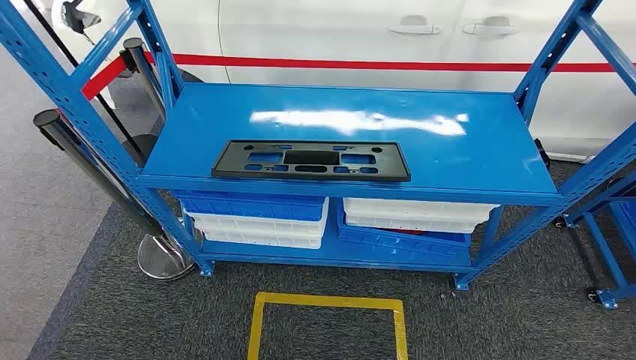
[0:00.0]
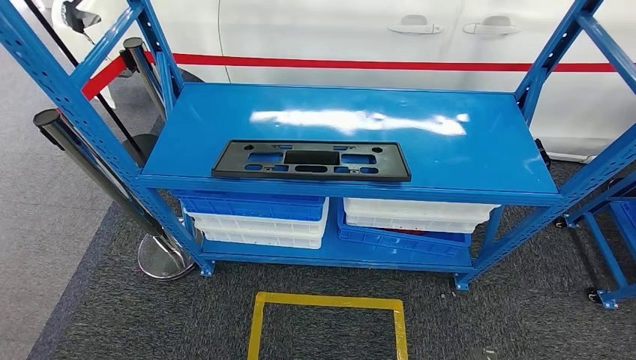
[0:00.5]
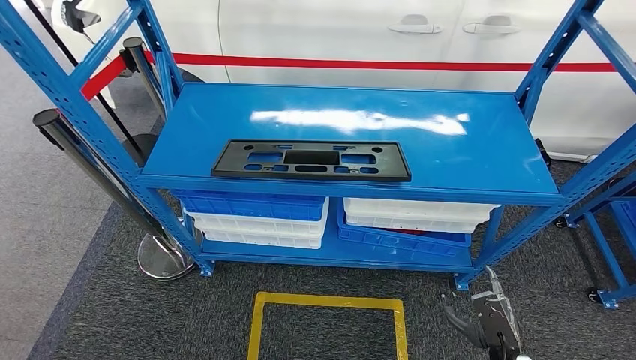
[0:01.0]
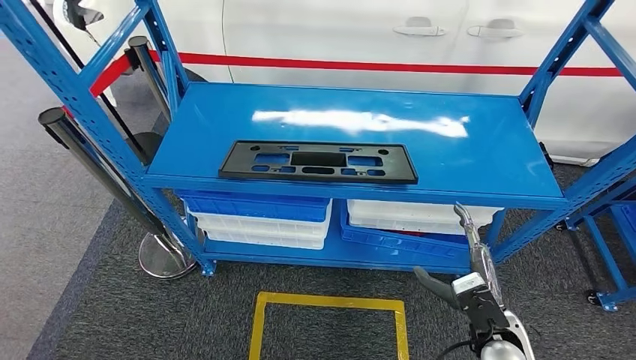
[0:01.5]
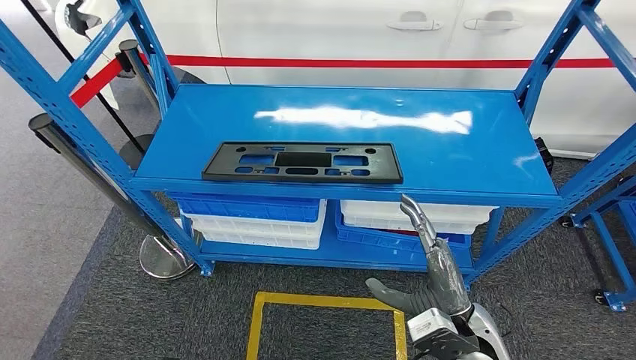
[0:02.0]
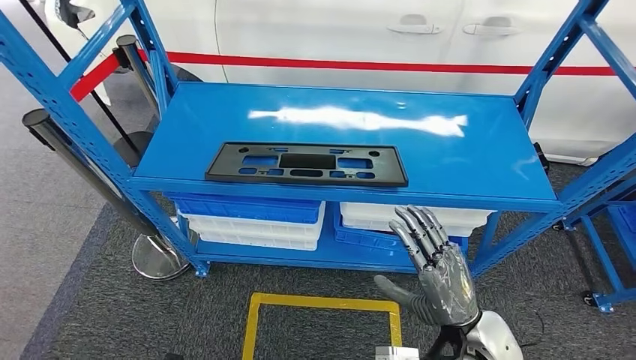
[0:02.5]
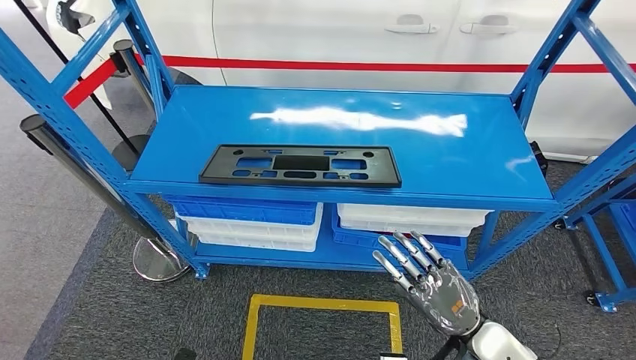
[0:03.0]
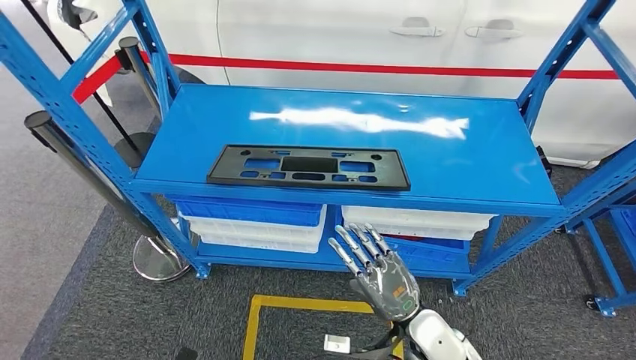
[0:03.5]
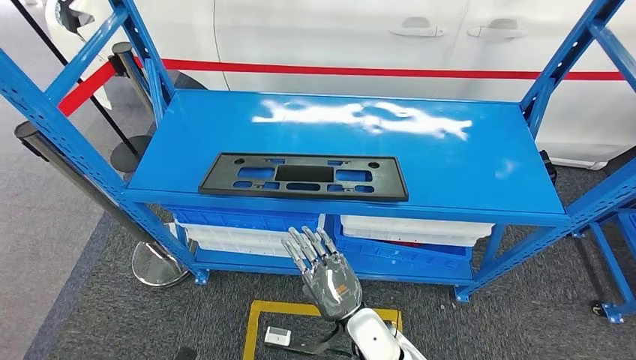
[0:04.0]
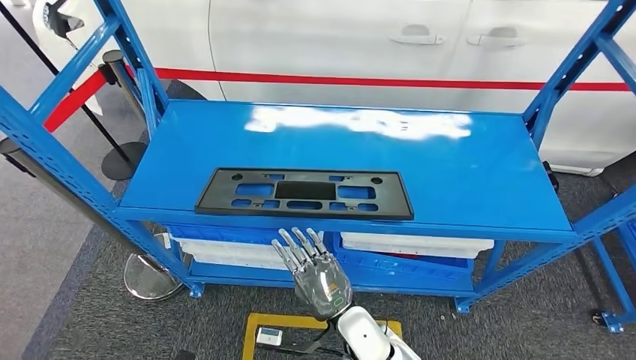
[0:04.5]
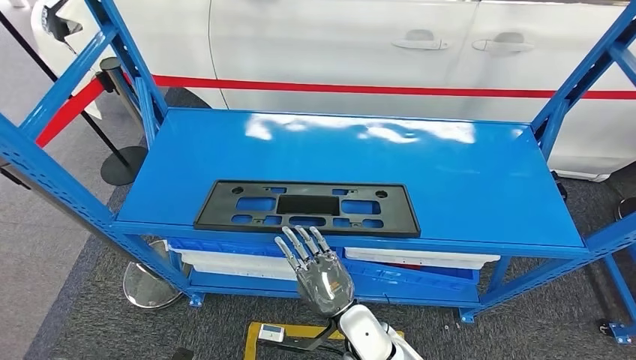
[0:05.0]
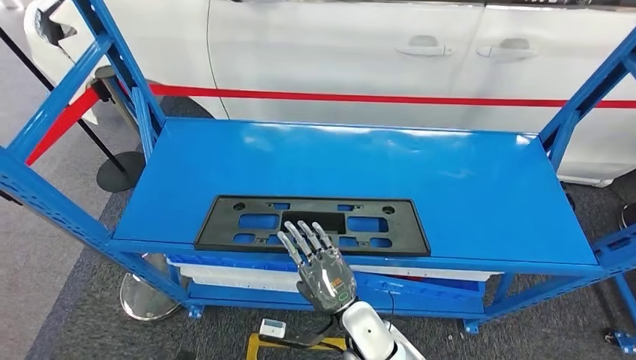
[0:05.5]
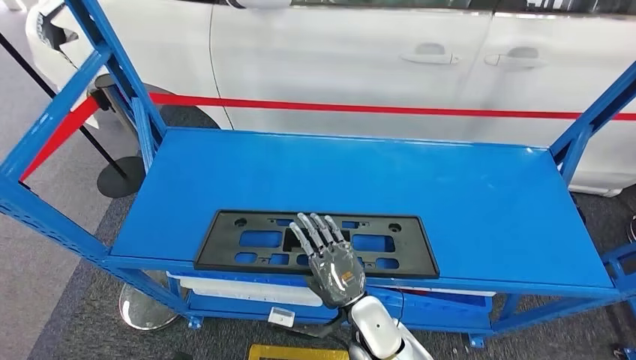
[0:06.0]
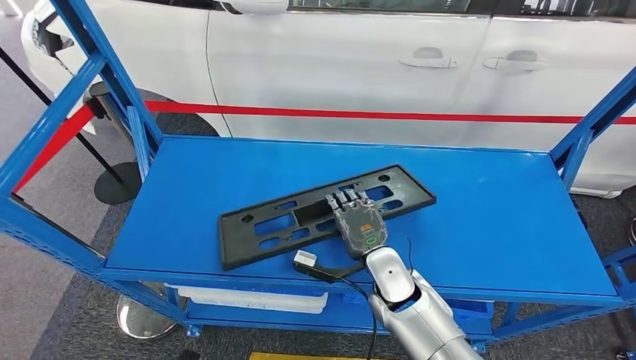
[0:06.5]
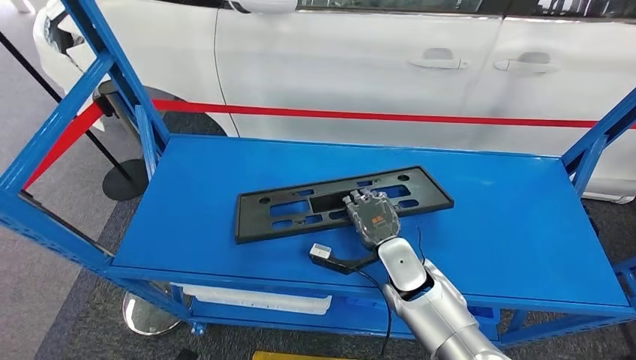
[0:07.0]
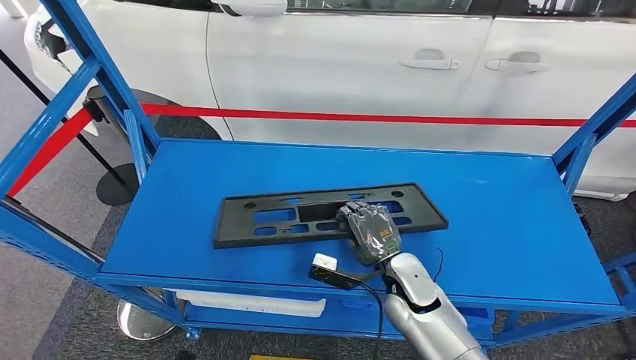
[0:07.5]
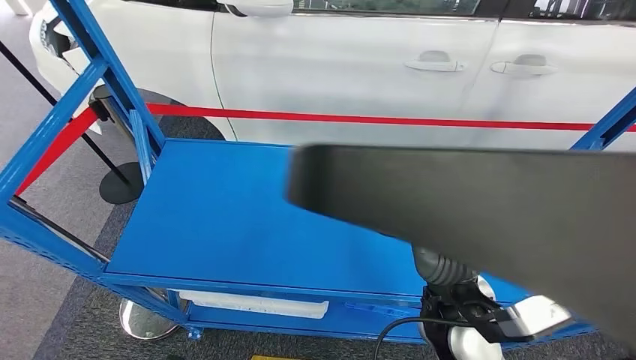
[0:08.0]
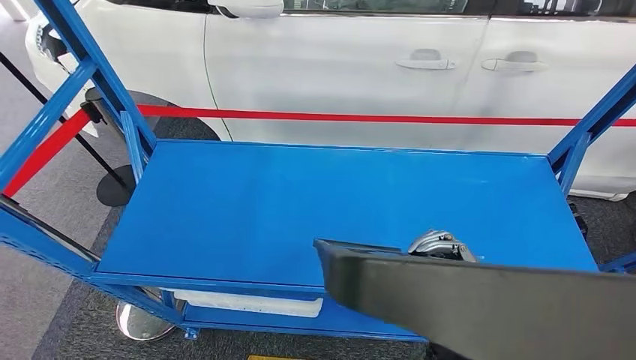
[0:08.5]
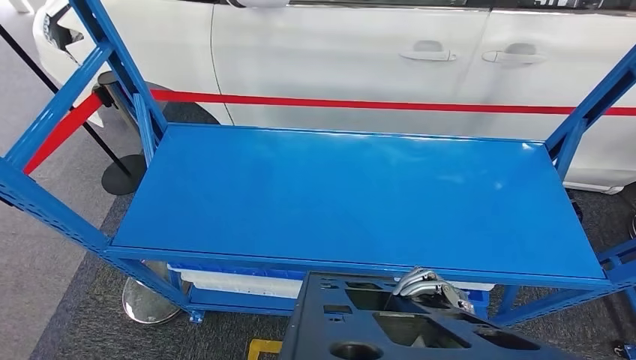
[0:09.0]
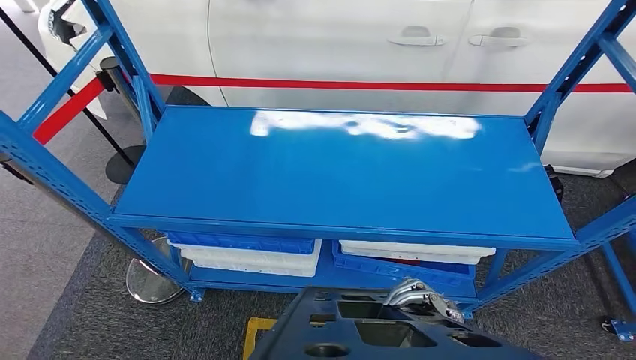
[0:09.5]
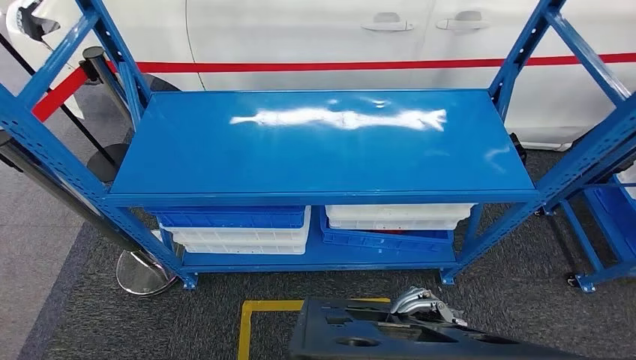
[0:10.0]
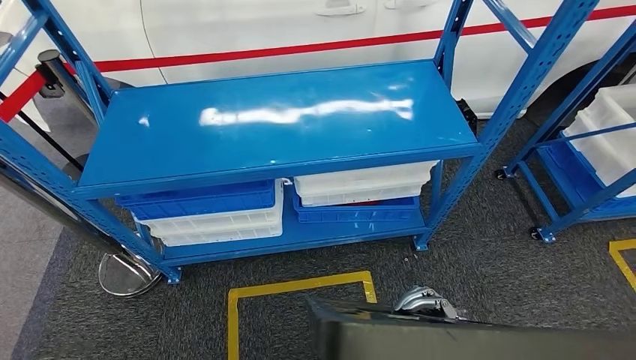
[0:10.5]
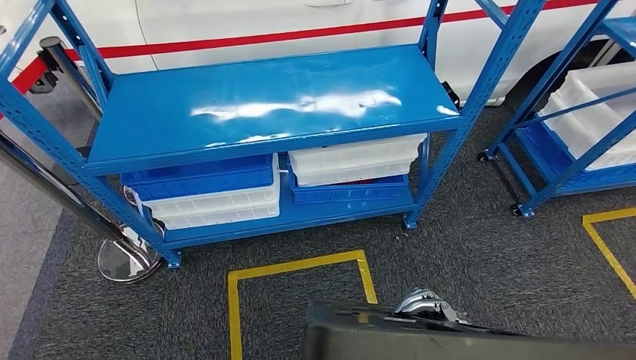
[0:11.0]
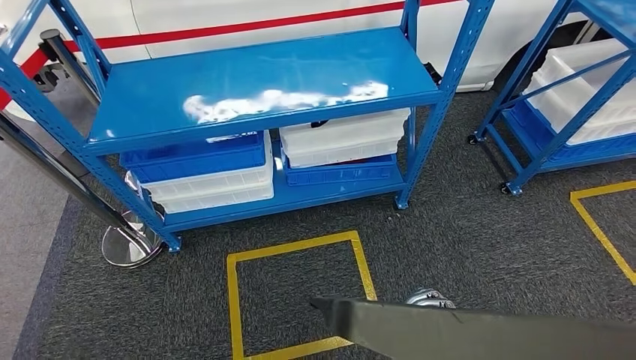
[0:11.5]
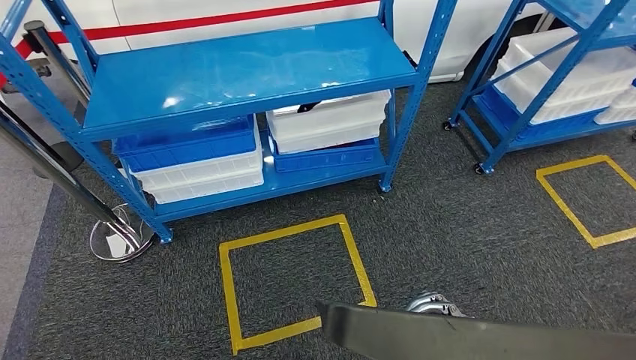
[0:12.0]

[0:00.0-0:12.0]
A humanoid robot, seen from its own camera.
Step, 0:00.0 to 0:09.0: Pick up the large material from the shelf.

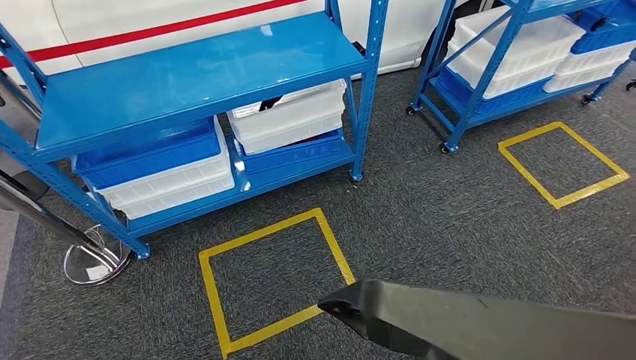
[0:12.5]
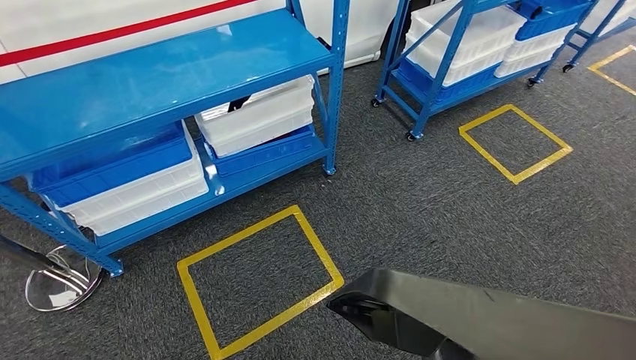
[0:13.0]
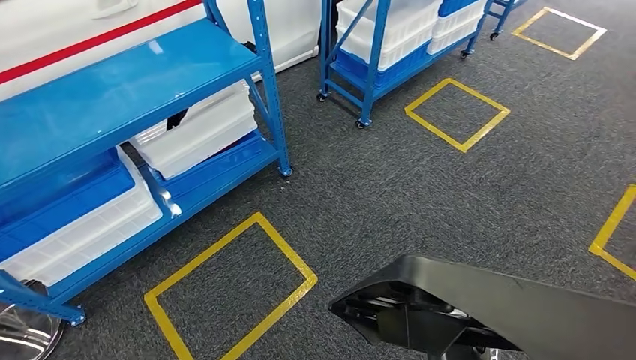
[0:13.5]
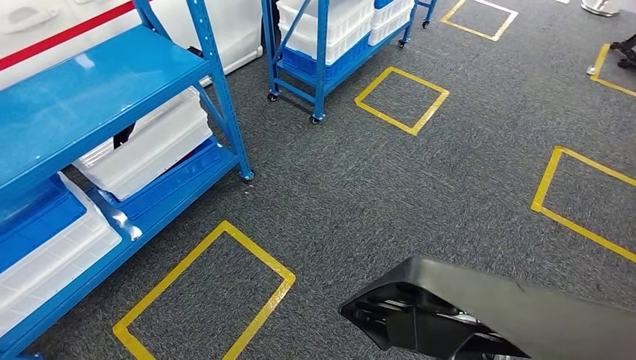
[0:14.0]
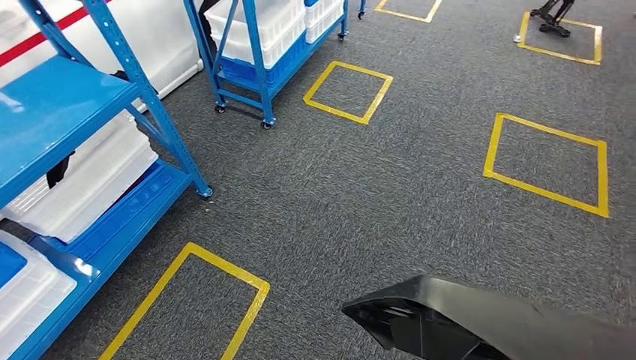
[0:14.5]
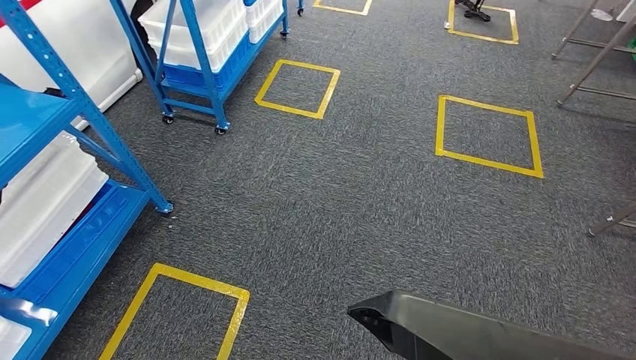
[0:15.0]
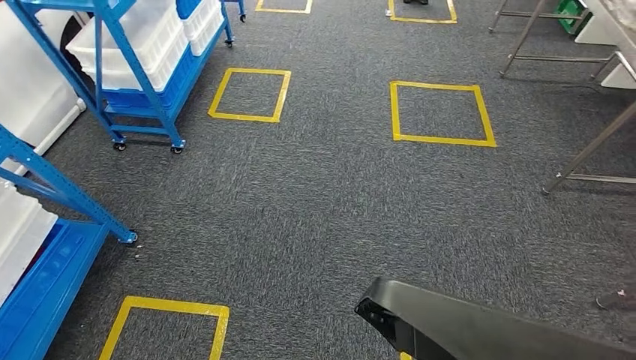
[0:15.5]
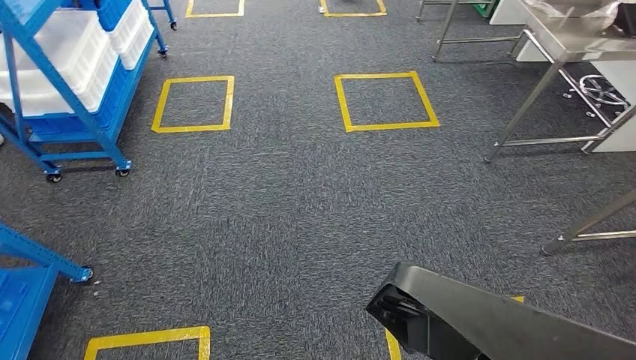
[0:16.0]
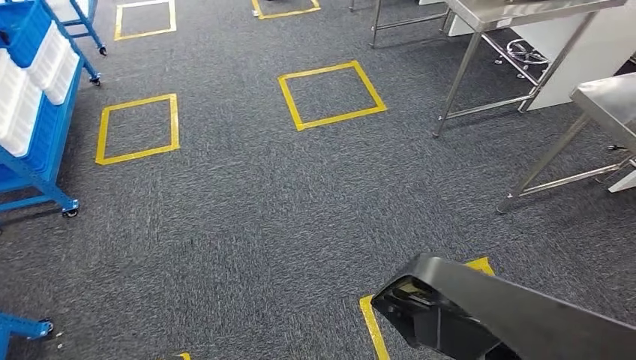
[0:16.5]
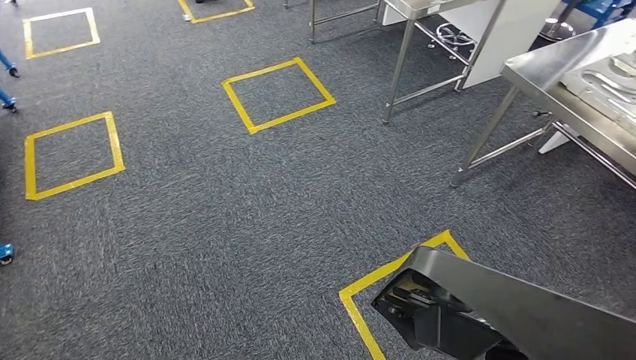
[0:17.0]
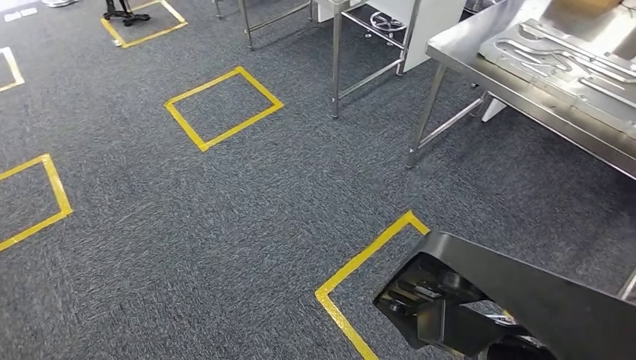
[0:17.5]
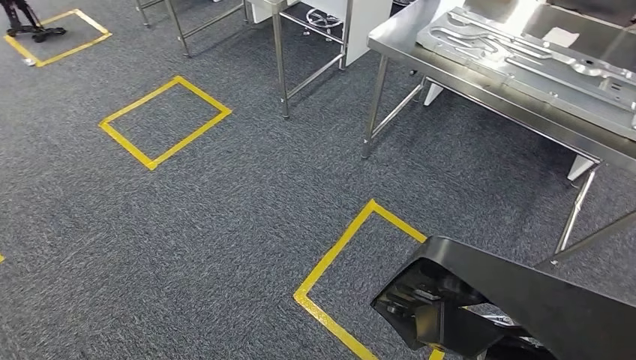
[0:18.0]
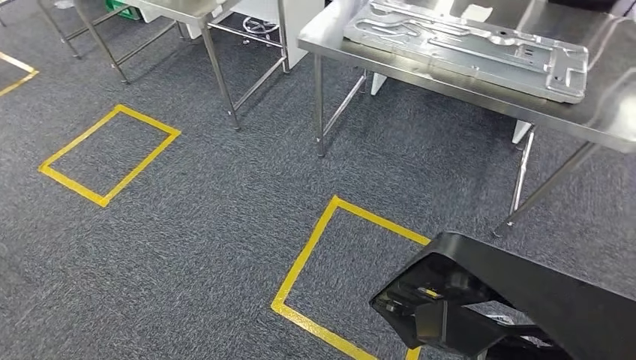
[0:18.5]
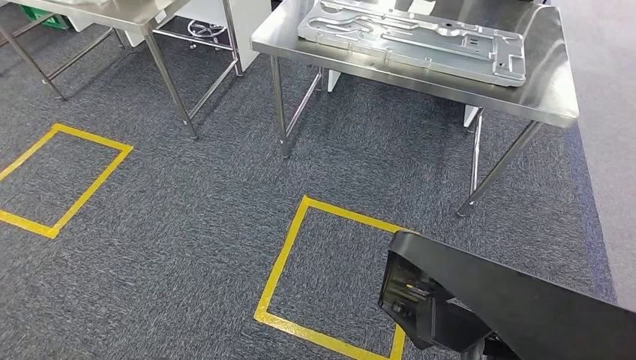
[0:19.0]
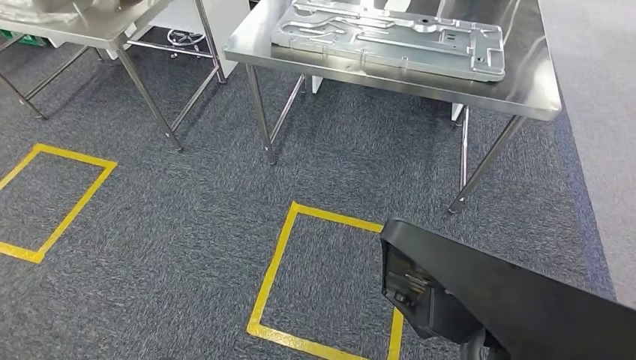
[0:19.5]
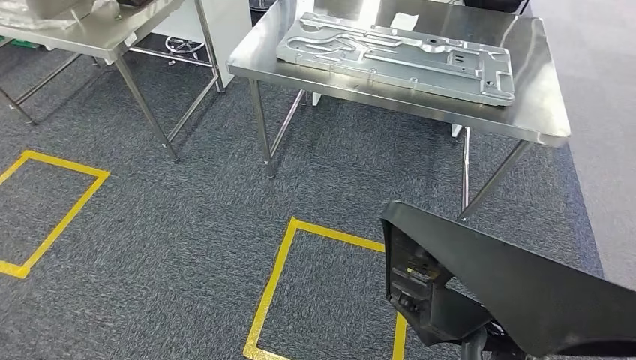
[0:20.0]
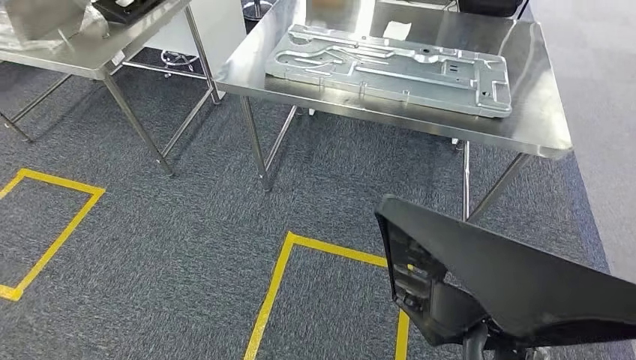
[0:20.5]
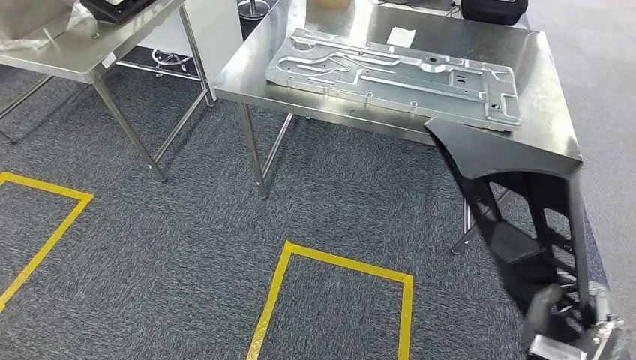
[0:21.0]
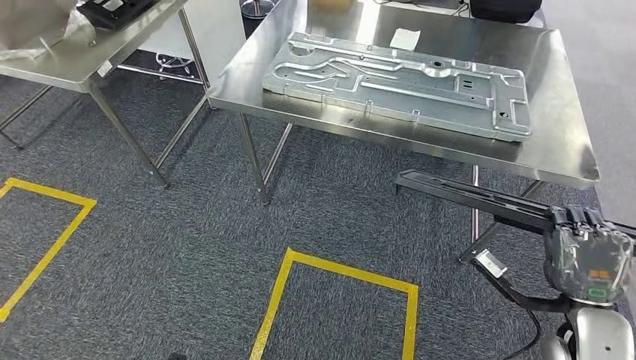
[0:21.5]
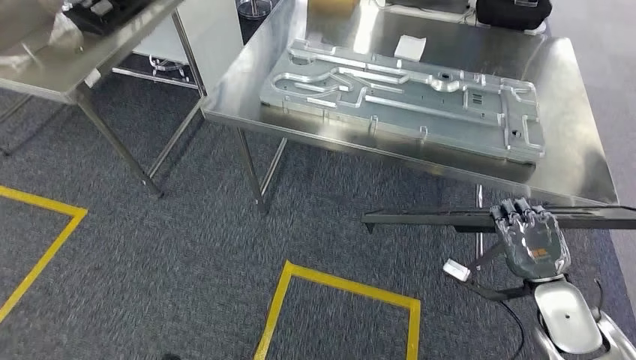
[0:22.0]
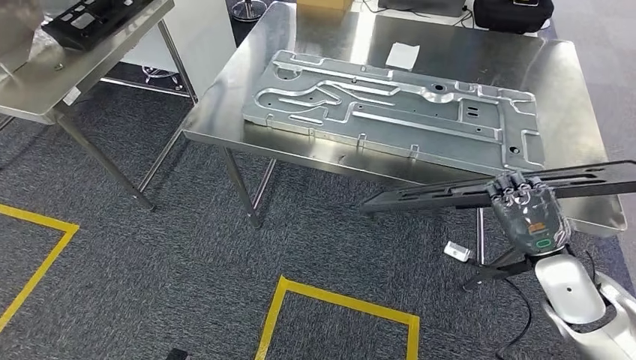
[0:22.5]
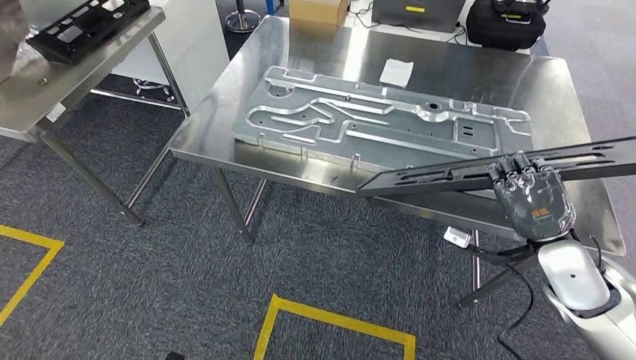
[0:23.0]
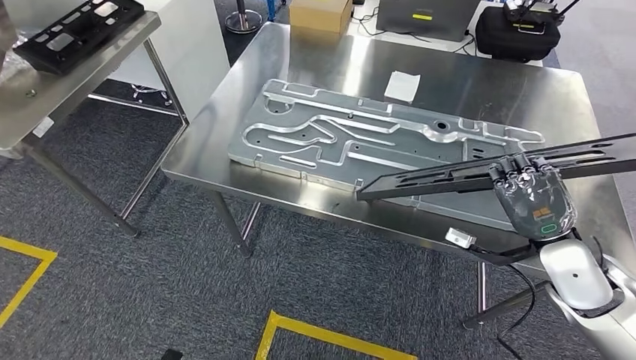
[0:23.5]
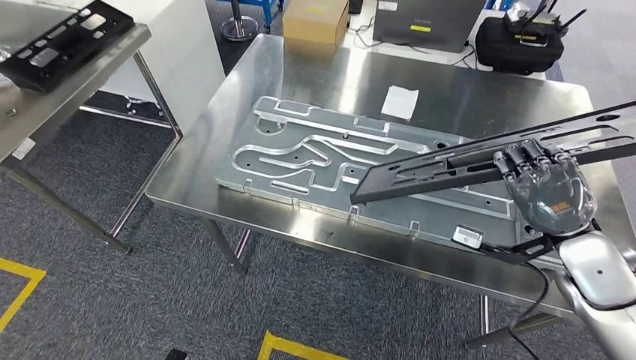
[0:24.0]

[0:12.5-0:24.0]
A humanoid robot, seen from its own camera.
Step, 0:12.5 to 0:23.0: Move the large material to the workbench.
